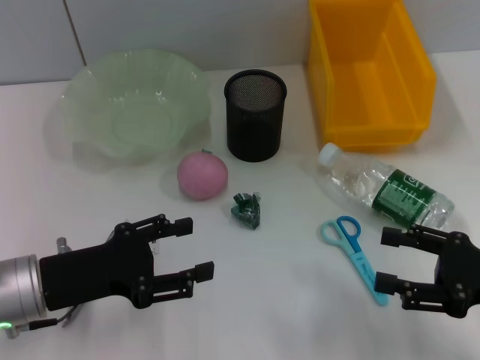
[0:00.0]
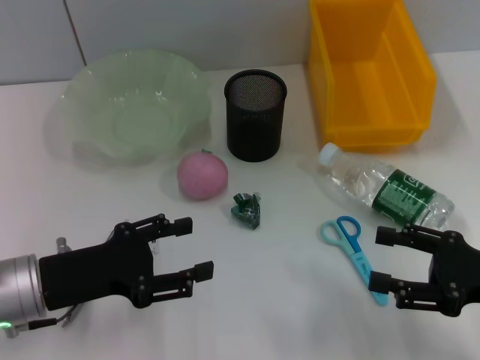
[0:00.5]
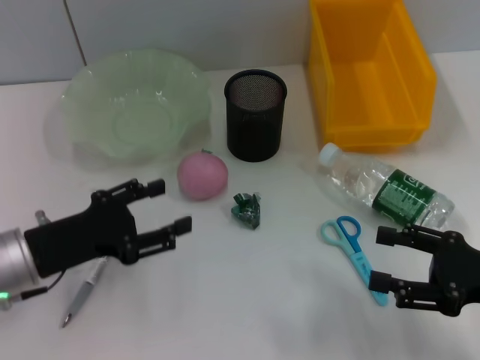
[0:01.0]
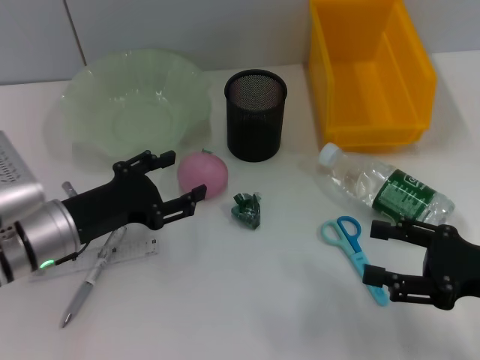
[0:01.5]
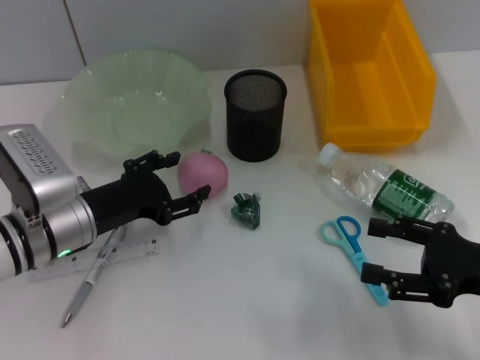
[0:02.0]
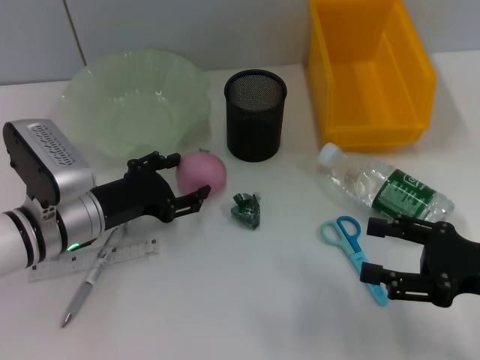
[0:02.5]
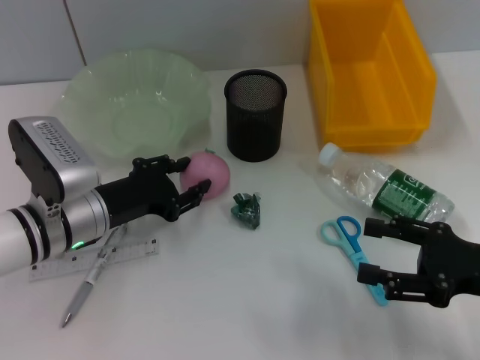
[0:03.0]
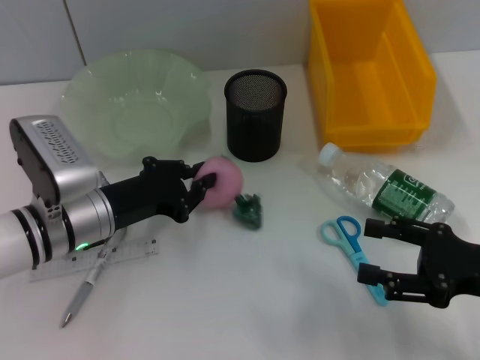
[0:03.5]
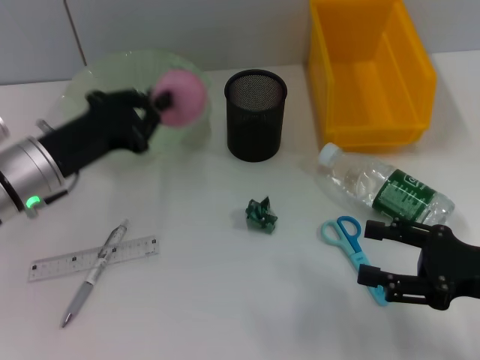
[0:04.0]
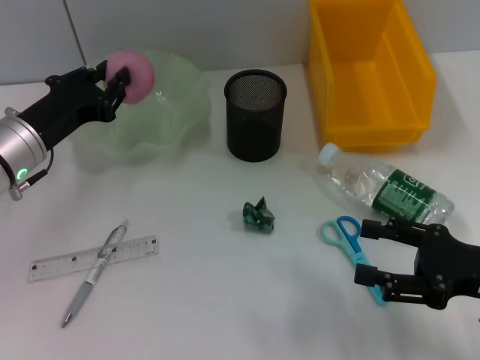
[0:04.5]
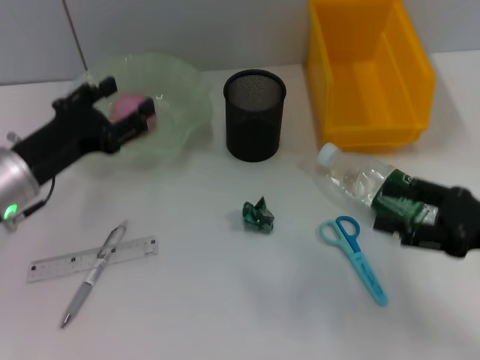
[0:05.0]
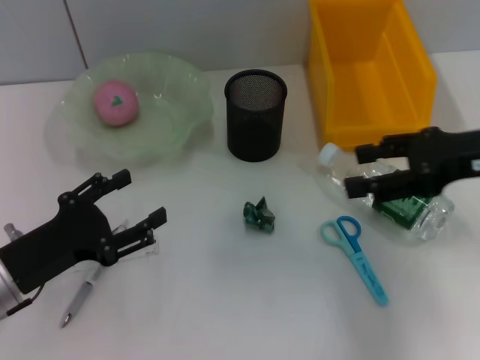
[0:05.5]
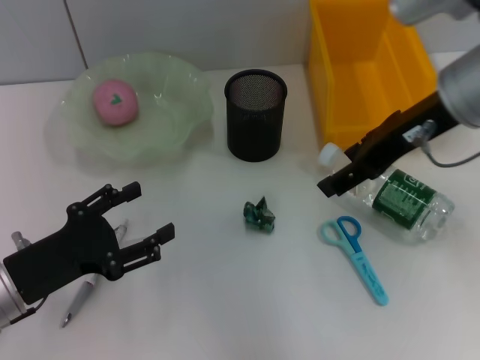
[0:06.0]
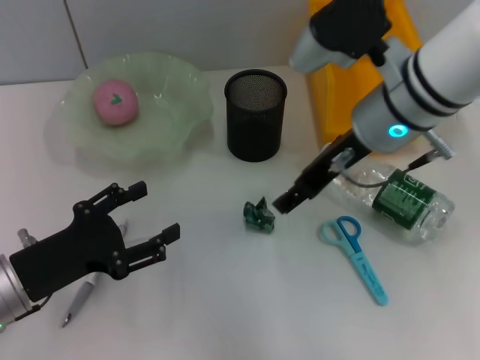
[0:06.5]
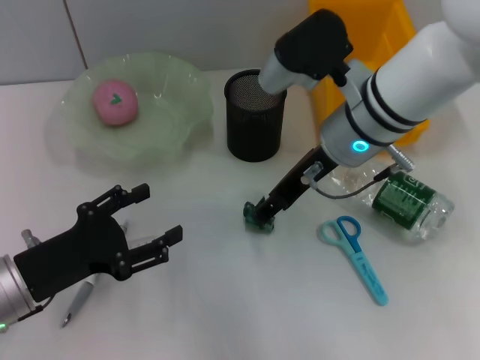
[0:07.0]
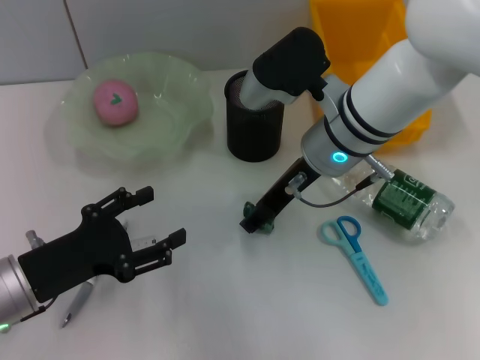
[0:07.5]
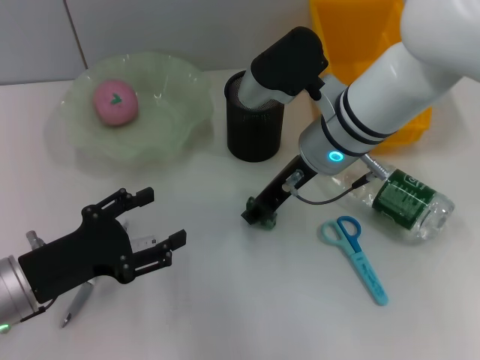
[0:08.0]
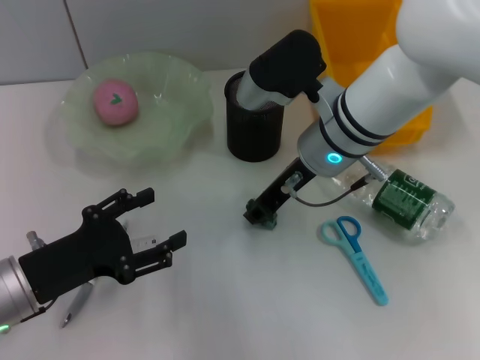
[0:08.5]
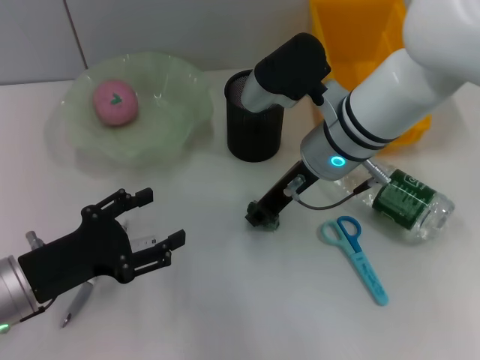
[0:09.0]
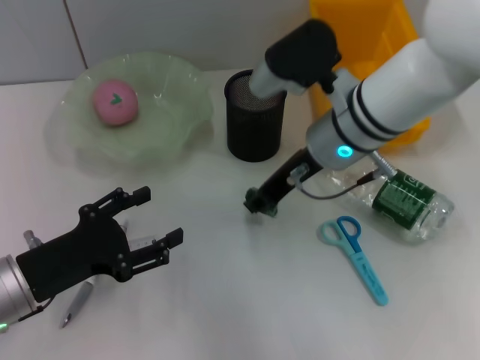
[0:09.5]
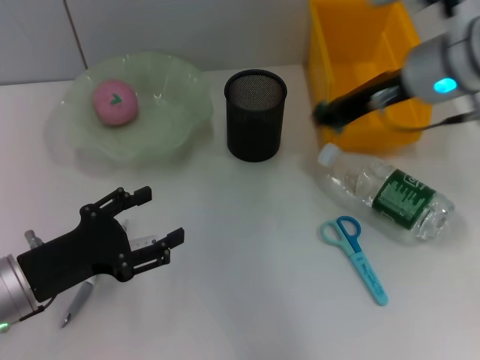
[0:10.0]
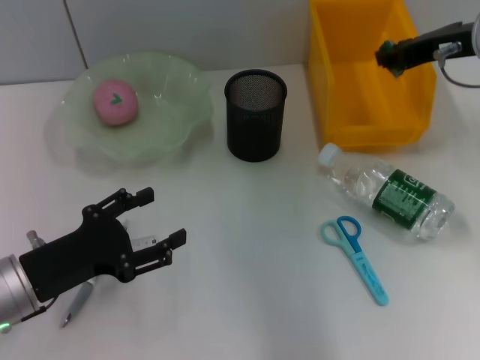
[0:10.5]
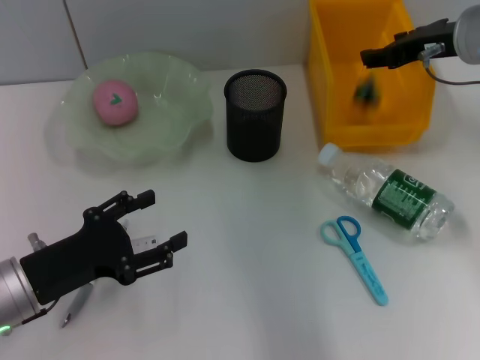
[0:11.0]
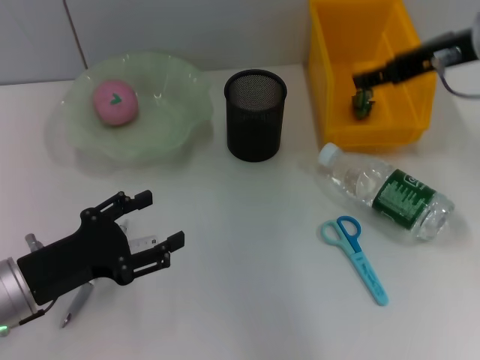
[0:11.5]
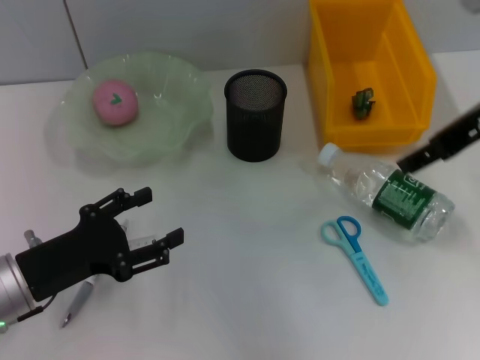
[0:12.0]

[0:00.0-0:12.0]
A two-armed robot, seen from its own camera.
Step, 0:00.0 to 0:03.0: Grab the peach with the left hand.
Step, 0:03.5 to 0:04.5: Place the peach into the fruit bowl with the left hand.
Step, 0:05.0 to 0:09.0: Grab the plastic with the right hand.
Step, 0:09.5 to 0:11.0: Place the plastic into the trash can with the right hand.
0:00.0 to 0:02.0: The left gripper is displaced forward by approximately 5 cm.
0:02.0 to 0:04.0: The left gripper ends up some 5 cm from where it was, and closes up.
0:04.0 to 0:06.0: The left gripper travels backward by about 10 cm, and opens, while the right gripper heads upward, forward and to the left, covering about 25 cm.
0:06.0 to 0:08.0: The right gripper heads downward and to the left, covering approximately 15 cm.
0:08.0 to 0:10.0: The right gripper goes some 10 cm to the right and upward, and closes its fingers.
0:10.0 to 0:12.0: The right gripper ends up roughly 10 cm from where it was, and opens up.

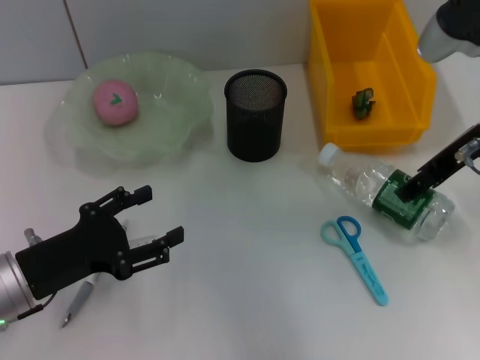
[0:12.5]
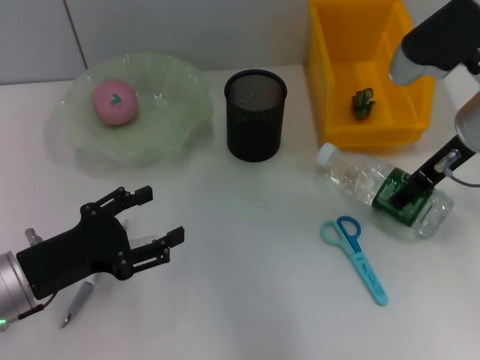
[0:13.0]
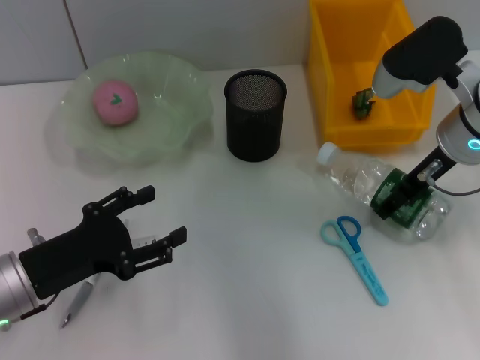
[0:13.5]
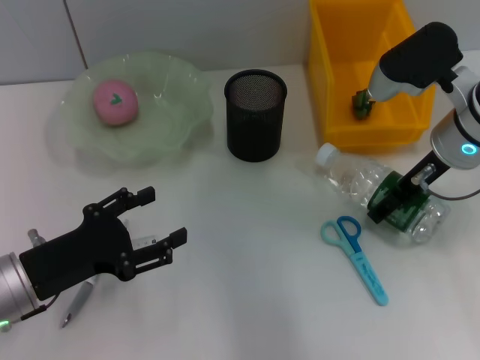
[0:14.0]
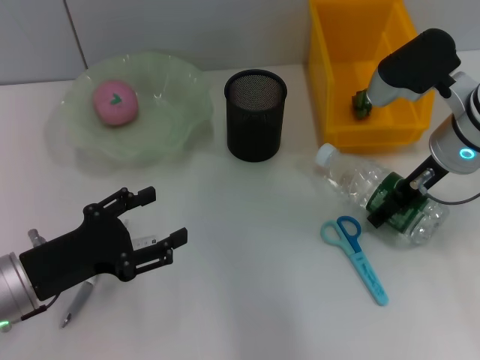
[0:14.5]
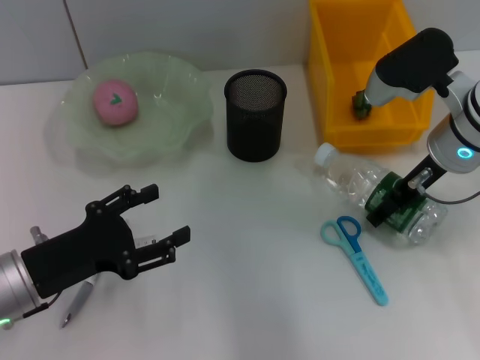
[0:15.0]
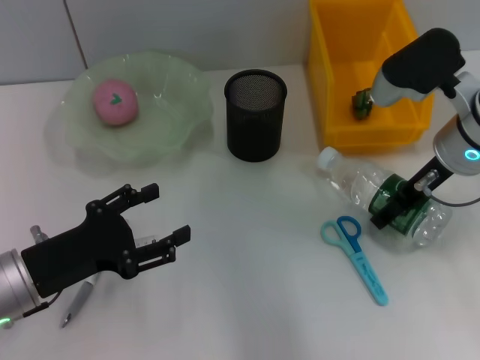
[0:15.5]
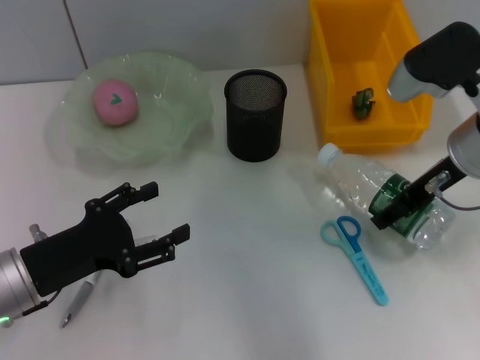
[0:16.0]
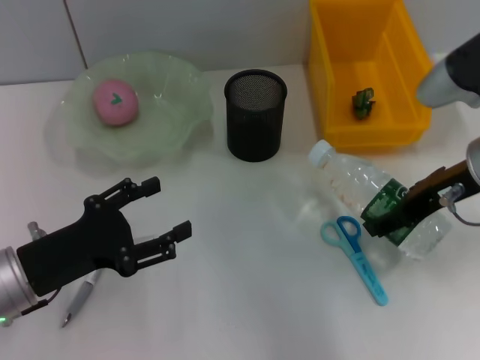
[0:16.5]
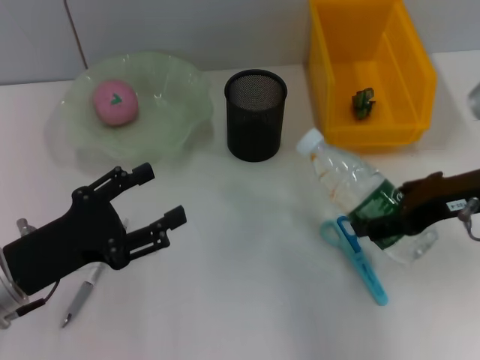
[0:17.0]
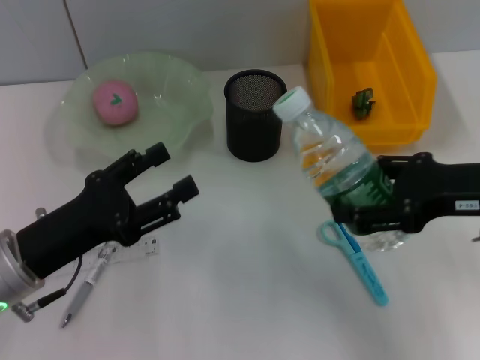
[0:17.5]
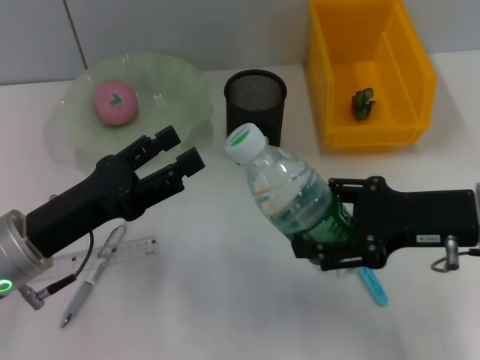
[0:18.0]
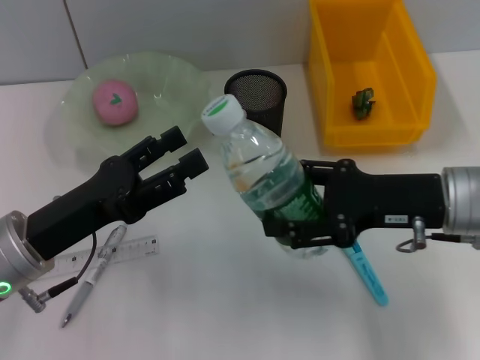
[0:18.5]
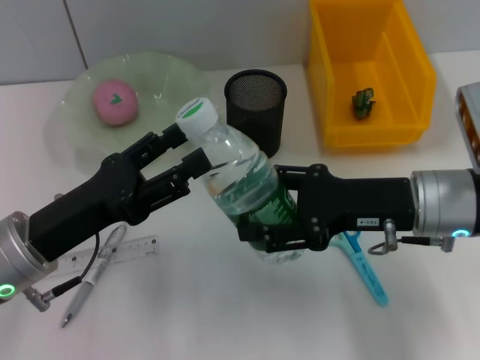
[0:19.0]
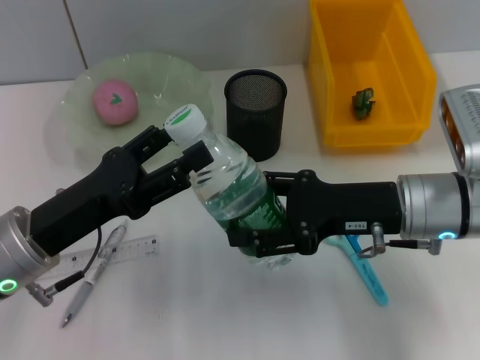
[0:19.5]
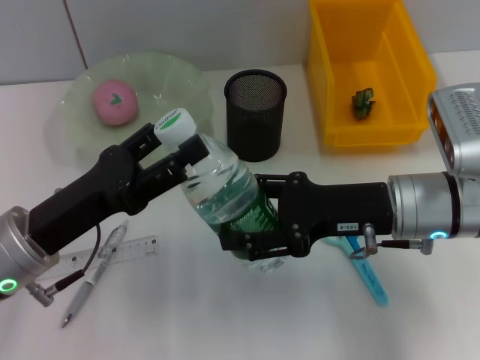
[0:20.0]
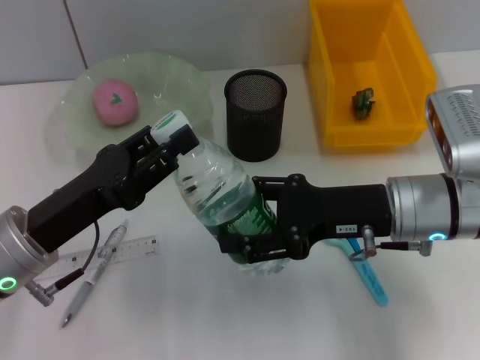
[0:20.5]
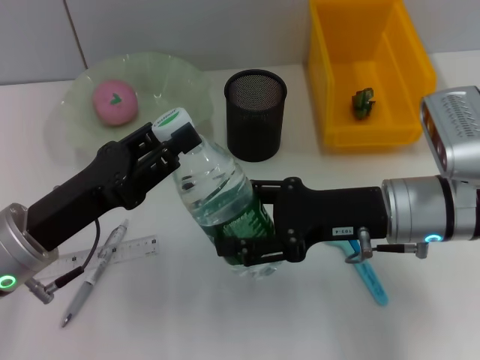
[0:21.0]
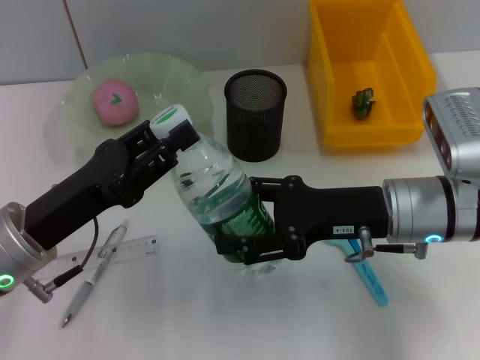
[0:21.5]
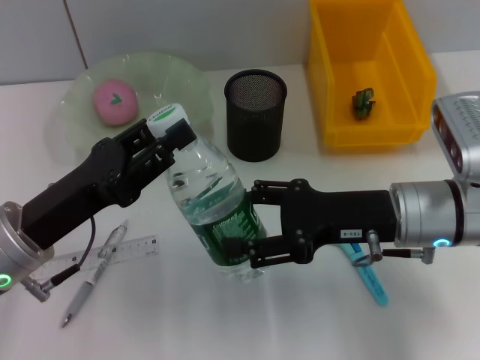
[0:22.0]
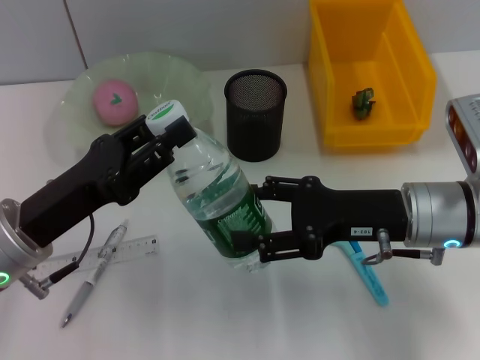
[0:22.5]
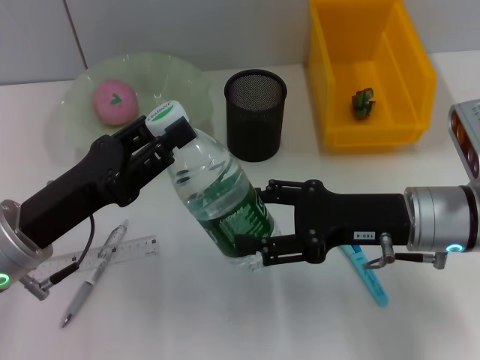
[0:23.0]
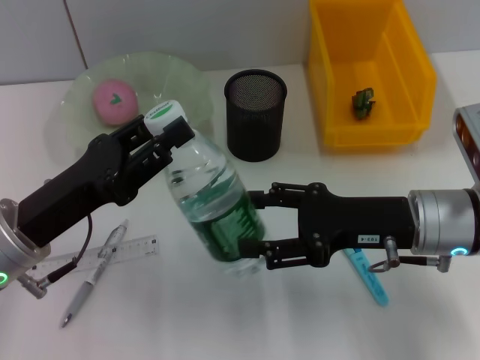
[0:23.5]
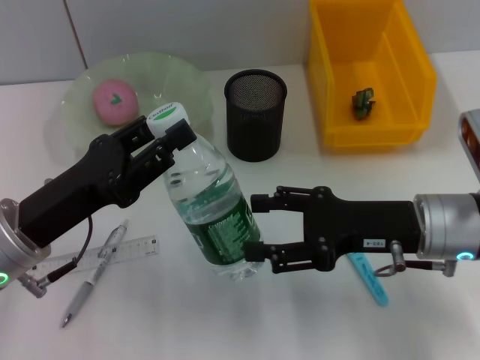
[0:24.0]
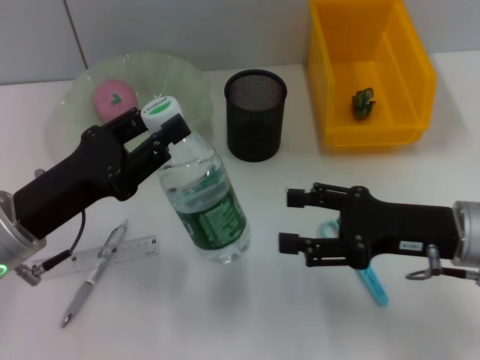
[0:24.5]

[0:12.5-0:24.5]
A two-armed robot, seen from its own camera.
Step, 0:12.5 to 0:15.0: Grab the water bottle with the right hand.
Step, 0:15.5 to 0:23.5: Pass the water bottle from the right hand to the left hand.
0:12.5 to 0:14.5: The right gripper moves downward, about 5 cm.
0:14.5 to 0:16.5: The right gripper heads backward, covering about 5 cm.
0:16.5 to 0:18.5: The right gripper changes place by approximately 5 cm.
0:18.5 to 0:22.5: The grippers stay close to where they were, moving slightly.
0:22.5 to 0:24.5: The right gripper changes place by roughly 5 cm.

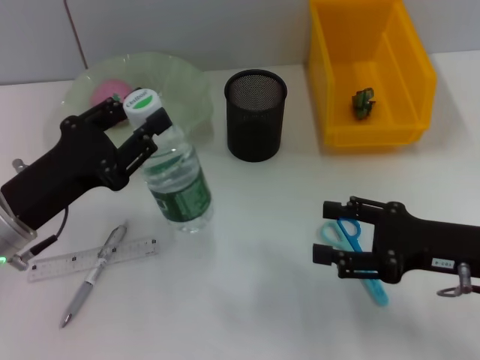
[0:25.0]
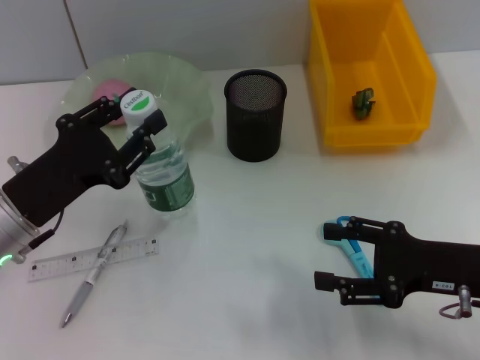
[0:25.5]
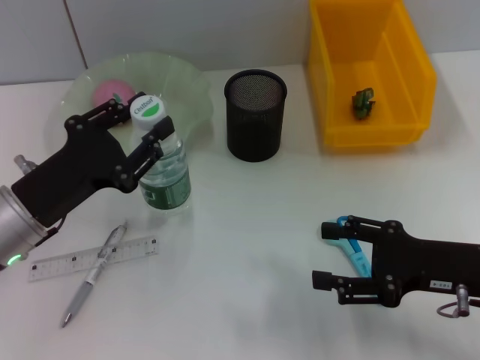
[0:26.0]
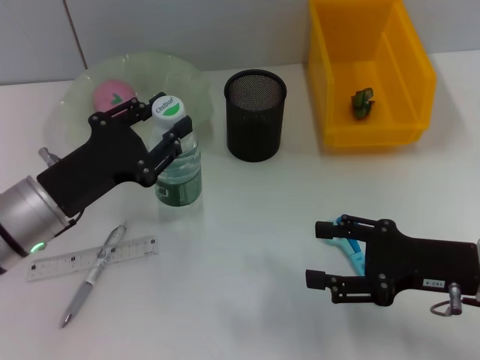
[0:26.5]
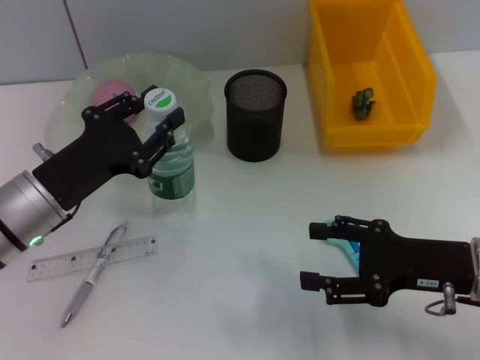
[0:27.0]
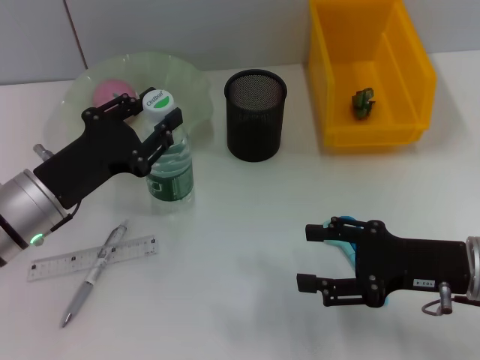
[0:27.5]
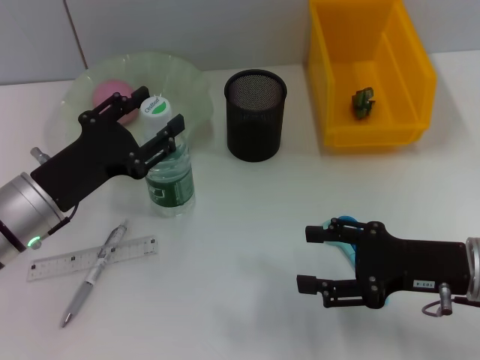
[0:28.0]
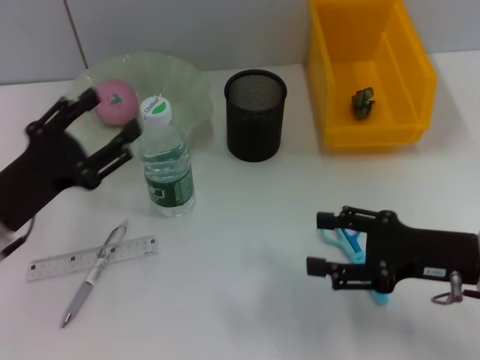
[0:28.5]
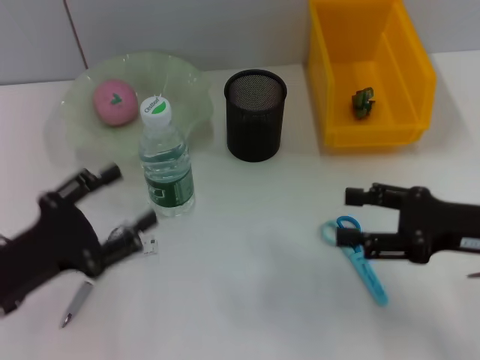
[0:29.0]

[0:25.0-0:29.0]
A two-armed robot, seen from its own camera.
Step, 0:25.0 to 0:27.5: Place the water bottle on the table with the left hand.
0:25.0 to 0:27.0: There are only small adjustments of the grippers.
0:27.0 to 0:29.0: The left gripper goes about 10 cm backward and to the left, and opens.
